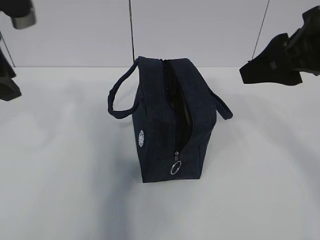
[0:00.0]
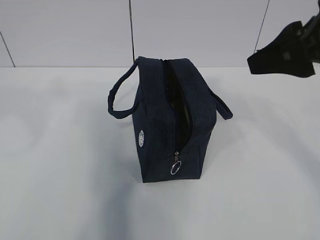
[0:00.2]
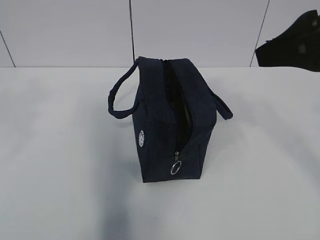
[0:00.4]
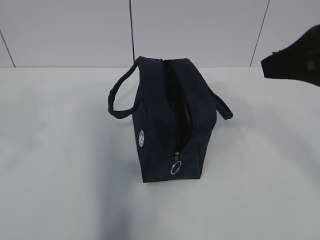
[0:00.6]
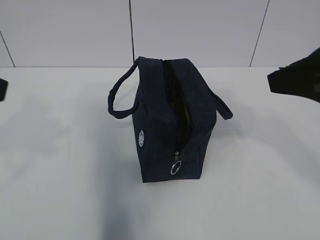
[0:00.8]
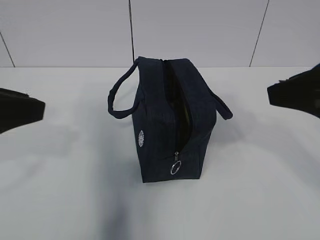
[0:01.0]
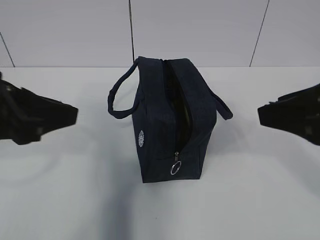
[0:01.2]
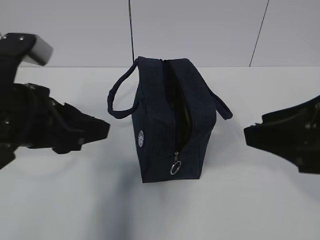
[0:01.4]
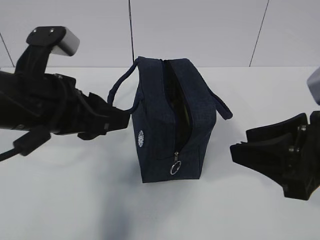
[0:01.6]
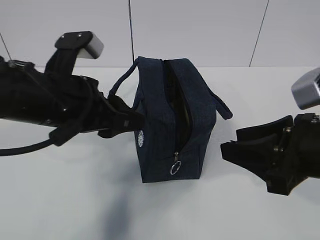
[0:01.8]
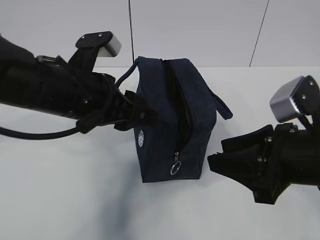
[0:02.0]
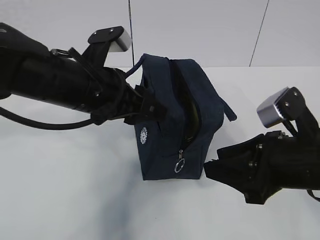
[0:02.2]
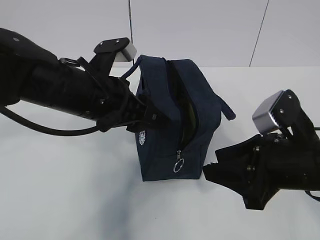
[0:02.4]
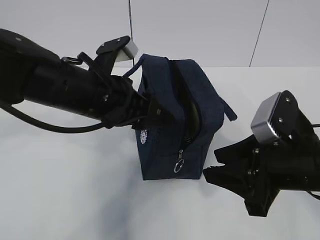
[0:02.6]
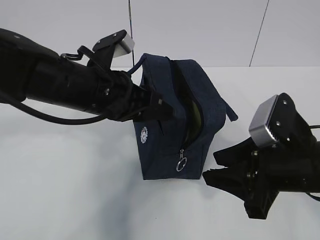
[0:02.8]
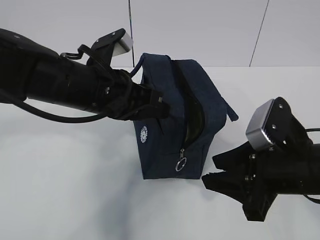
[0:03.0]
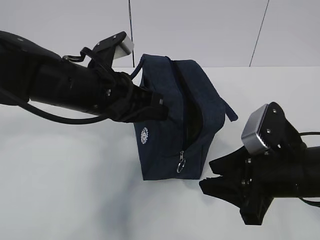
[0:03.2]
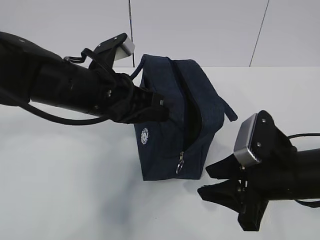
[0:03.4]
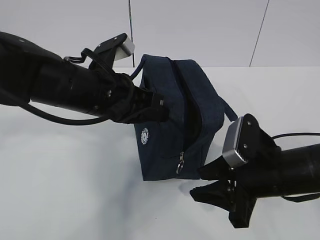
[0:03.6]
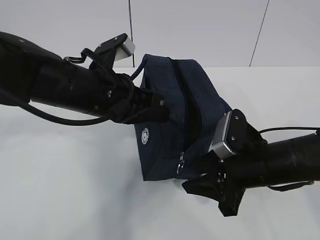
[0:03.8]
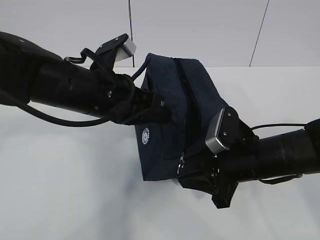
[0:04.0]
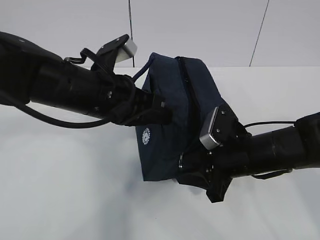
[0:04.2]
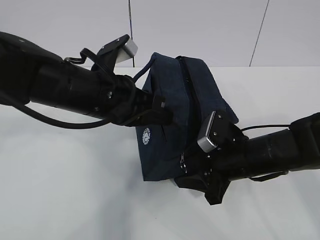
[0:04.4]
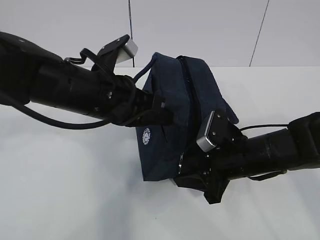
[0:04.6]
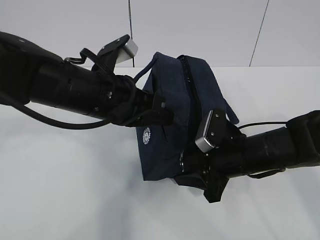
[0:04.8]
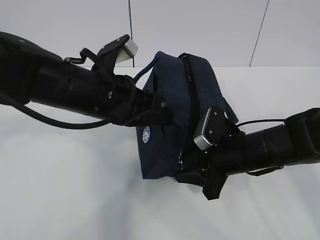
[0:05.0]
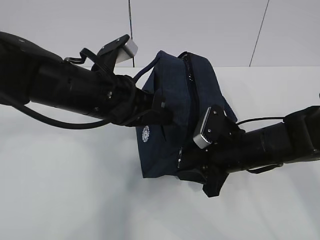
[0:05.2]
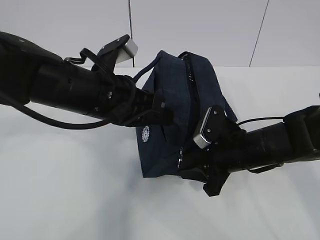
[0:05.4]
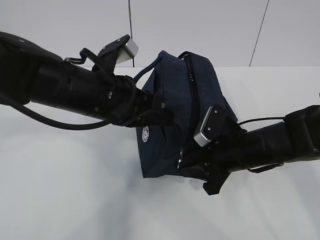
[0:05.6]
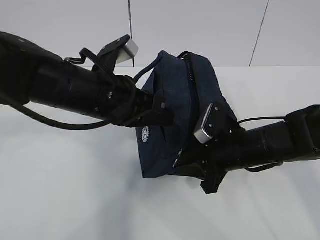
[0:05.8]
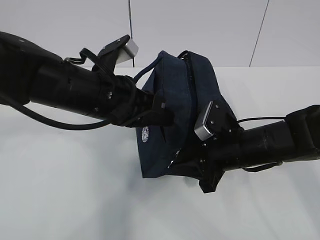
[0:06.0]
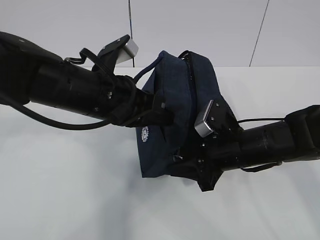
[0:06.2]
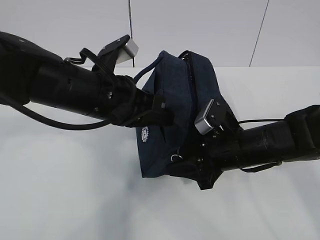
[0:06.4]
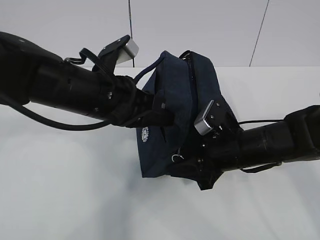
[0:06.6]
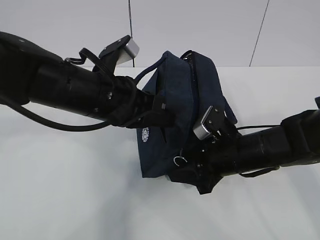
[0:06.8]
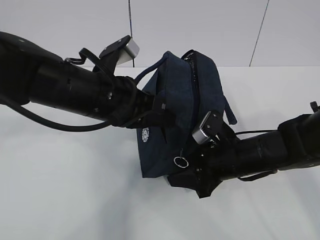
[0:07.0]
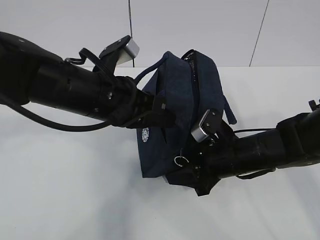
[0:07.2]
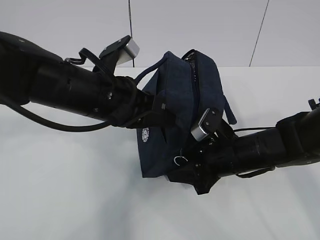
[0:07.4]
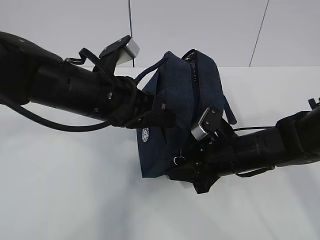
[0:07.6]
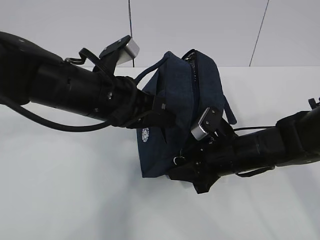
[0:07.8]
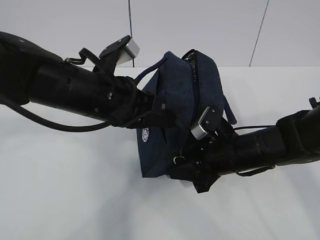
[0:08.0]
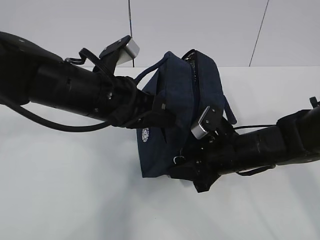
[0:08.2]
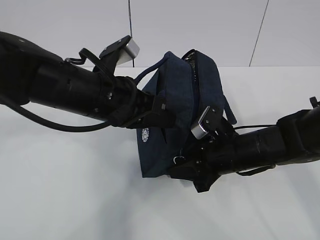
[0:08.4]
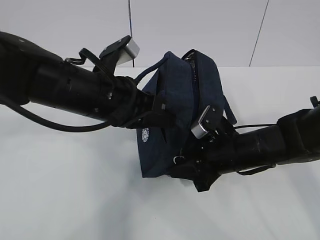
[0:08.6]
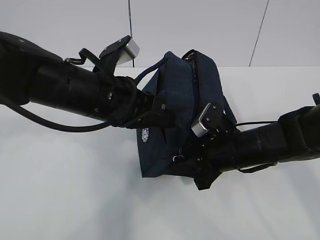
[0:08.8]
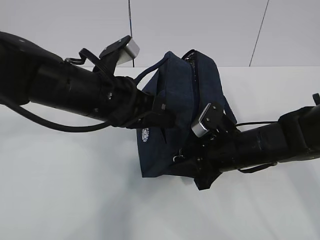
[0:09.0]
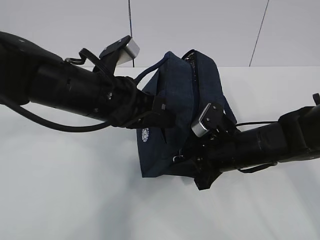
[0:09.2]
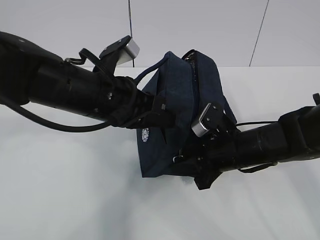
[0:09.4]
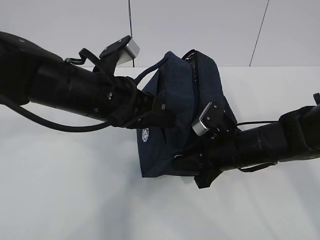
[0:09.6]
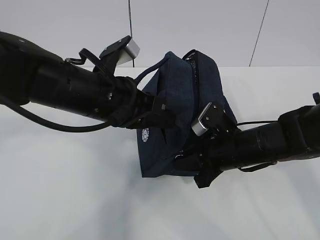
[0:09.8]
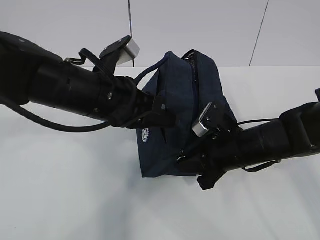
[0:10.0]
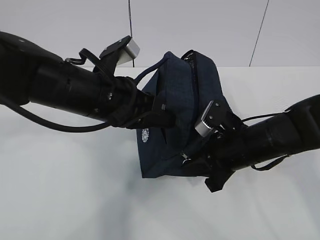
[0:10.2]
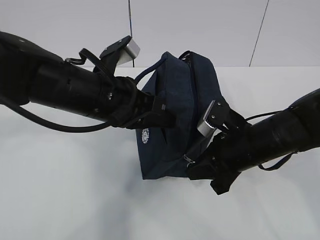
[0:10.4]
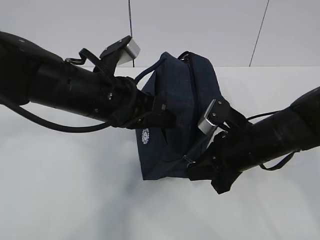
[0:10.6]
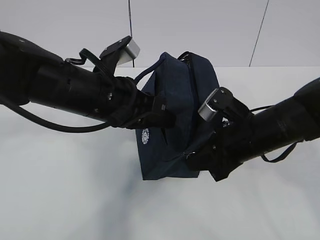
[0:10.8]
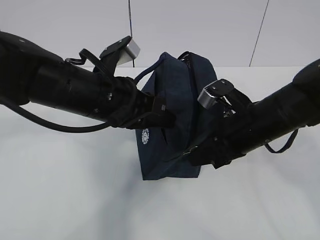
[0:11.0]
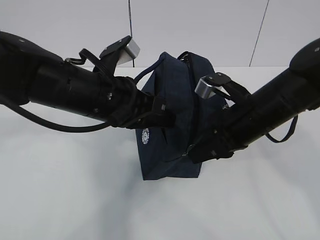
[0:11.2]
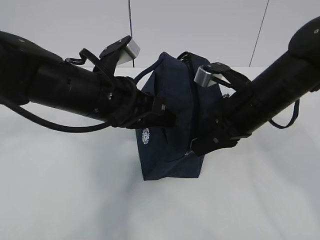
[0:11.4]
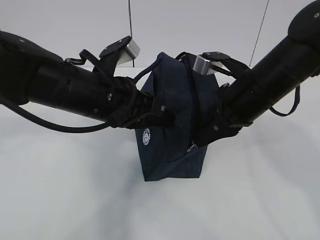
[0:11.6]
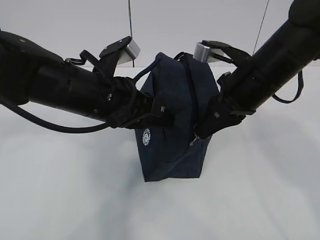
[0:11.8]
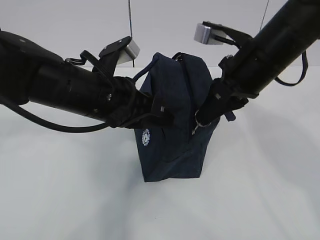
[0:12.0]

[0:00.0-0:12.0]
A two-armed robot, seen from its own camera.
Step, 0:00.0 to 0:09.8: Pull the zipper with your right hand.
0:00.0 to 0:01.6: The right gripper is displaced downward and backward by about 10 cm. The left gripper moves downward and to the right, approximately 10 cm.
0:01.6 to 0:03.0: The right gripper goes some 5 cm downward; the left gripper is displaced forward and to the right by roughly 10 cm, and closes up.
0:03.0 to 0:04.4: The right gripper heads forward and downward, covering roughly 10 cm.
0:04.4 to 0:07.6: There are only small adjustments of the grippers.
0:07.6 to 0:09.0: Both grippers stay put.
0:09.0 to 0:10.4: The right gripper closes.
0:10.4 to 0:12.0: The right gripper shifts approximately 15 cm upward.

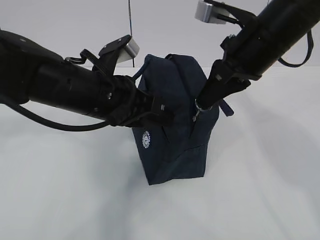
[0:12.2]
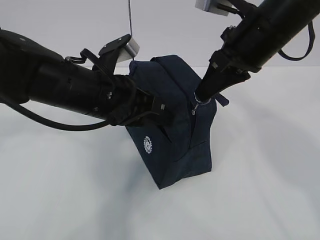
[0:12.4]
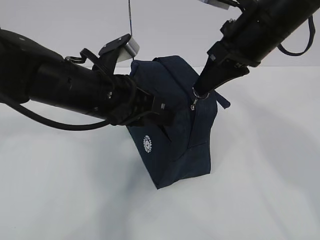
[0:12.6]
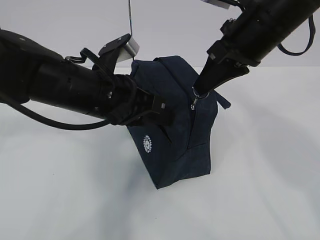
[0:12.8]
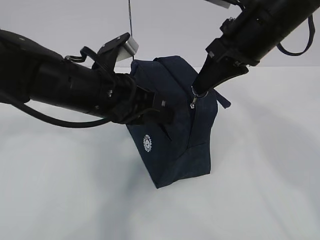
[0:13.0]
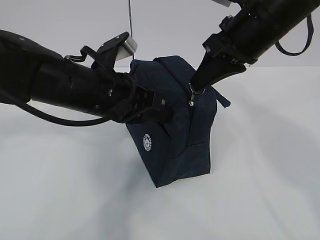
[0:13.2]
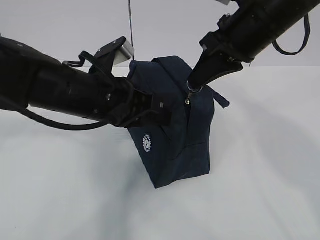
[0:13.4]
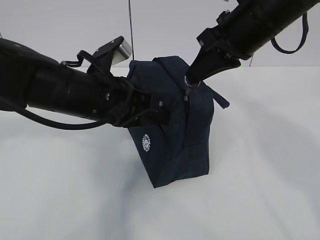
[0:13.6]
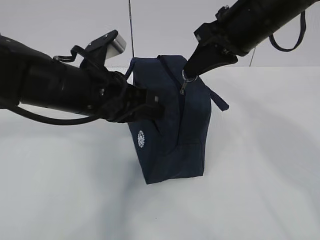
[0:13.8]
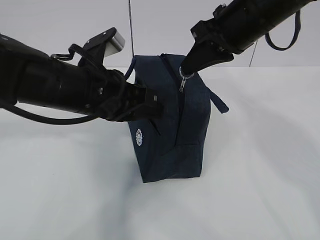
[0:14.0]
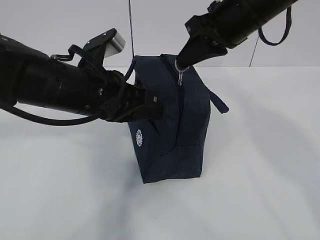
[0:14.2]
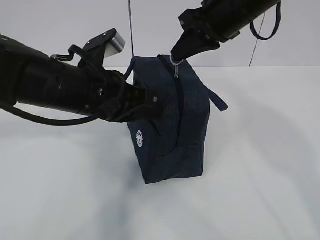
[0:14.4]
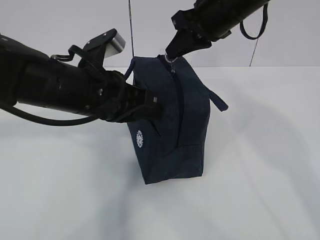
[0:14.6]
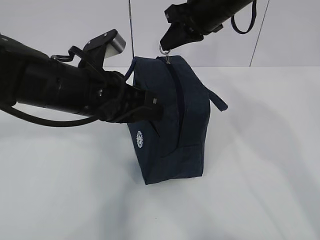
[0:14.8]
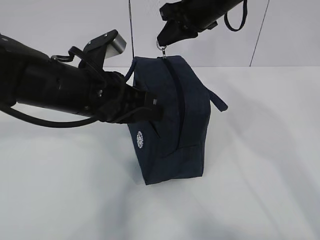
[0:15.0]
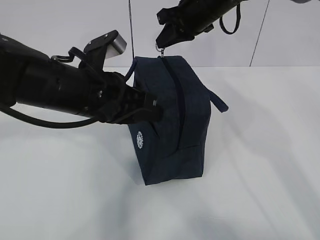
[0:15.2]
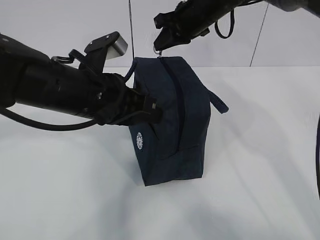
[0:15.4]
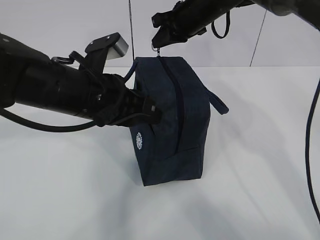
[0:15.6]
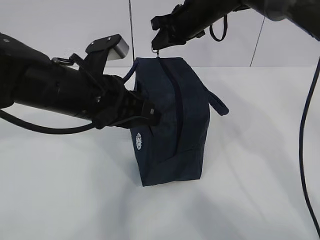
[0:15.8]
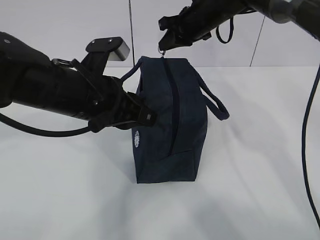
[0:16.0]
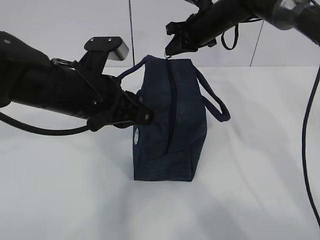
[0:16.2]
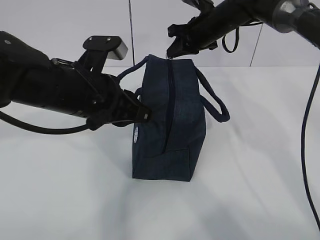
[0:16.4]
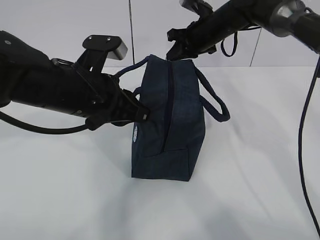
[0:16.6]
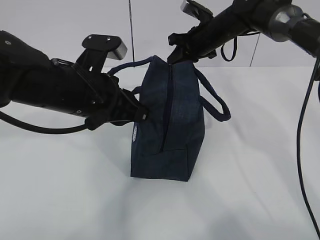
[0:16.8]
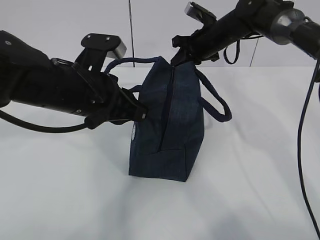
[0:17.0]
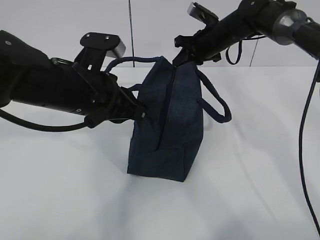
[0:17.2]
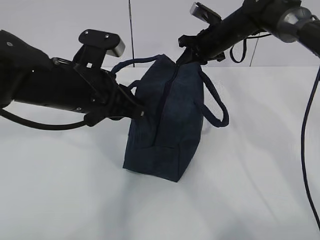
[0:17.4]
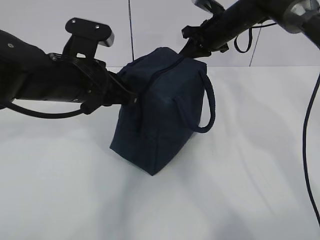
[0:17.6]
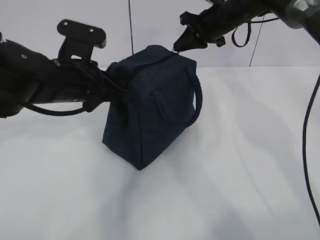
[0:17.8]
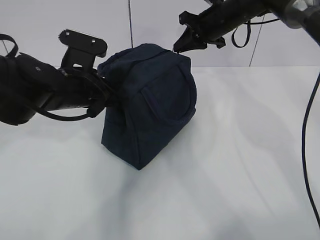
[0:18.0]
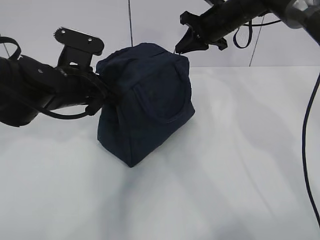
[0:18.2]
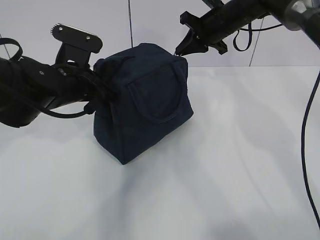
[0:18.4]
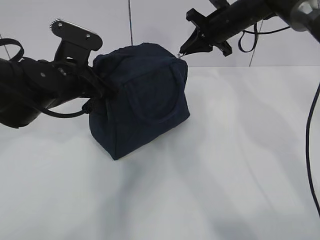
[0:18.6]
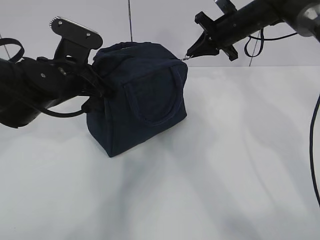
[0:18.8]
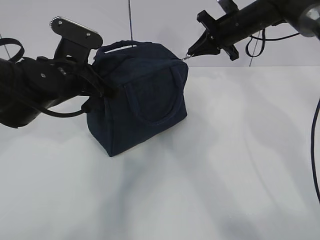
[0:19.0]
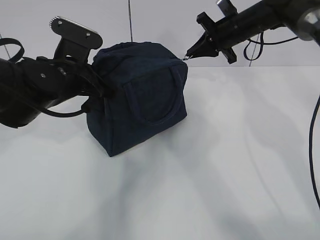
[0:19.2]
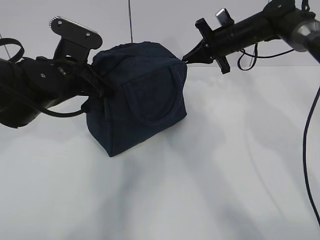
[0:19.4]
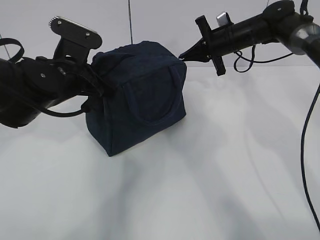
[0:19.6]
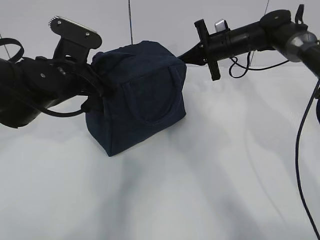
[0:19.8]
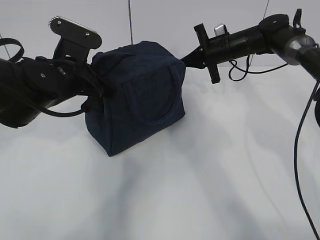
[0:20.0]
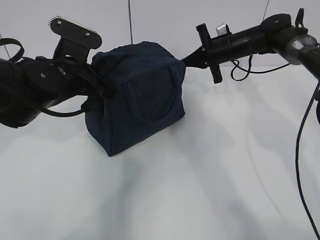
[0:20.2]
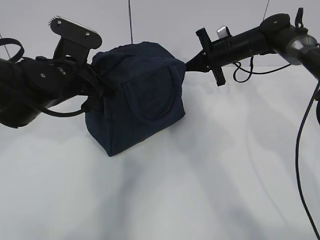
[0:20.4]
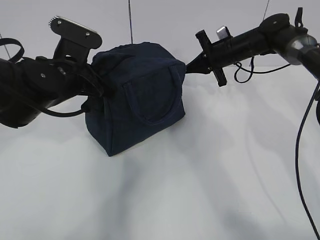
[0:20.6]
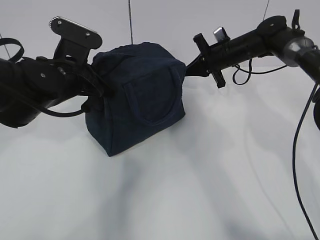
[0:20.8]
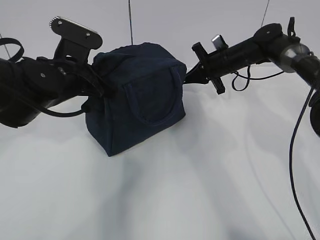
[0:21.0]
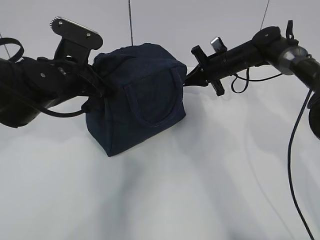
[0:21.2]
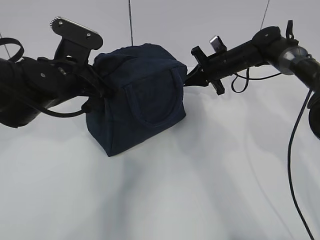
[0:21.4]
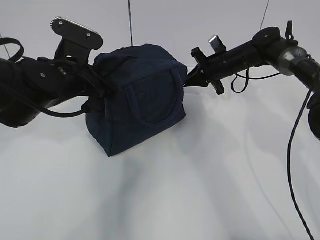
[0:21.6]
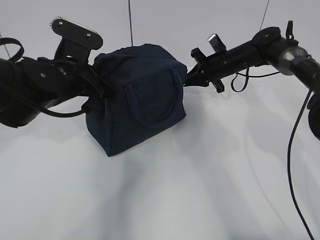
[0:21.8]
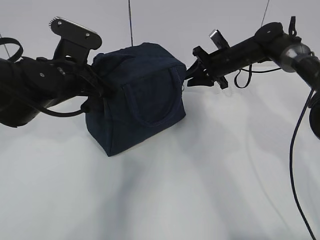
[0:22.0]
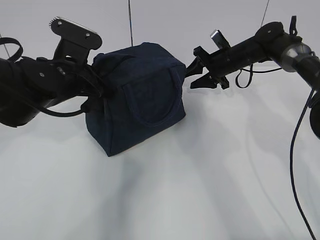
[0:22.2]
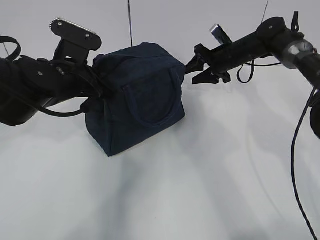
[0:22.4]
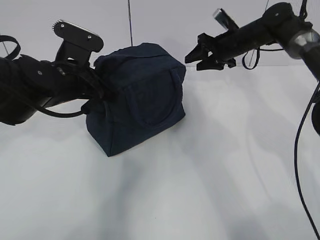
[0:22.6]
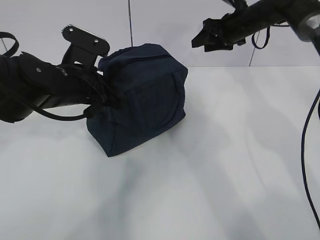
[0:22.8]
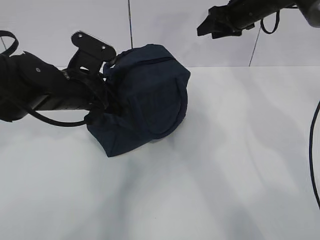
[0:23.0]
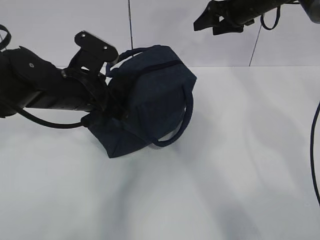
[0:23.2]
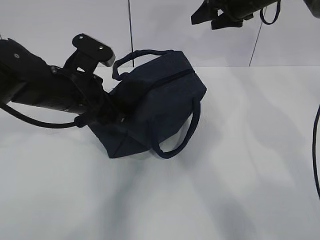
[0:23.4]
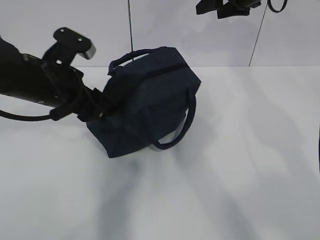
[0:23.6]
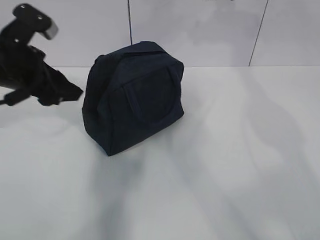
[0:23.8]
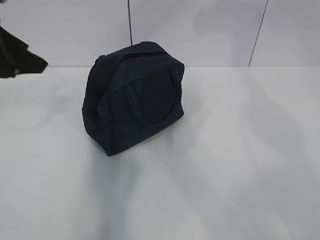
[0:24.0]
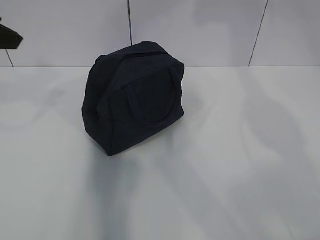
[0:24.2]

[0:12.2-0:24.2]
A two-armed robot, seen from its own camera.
0:12.2 to 0:13.8: There are only small adjustments of the grippers.
0:13.8 to 0:15.2: The right gripper is displaced forward by some 15 cm.
0:15.2 to 0:16.6: The right gripper moves downward and forward, approximately 10 cm.
0:16.6 to 0:18.2: The left gripper shifts about 5 cm forward.
0:18.2 to 0:19.8: The right gripper heads downward, covering some 5 cm.
0:19.8 to 0:21.2: The grippers make only small movements.
0:21.2 to 0:22.6: The right gripper travels upward by roughly 5 cm, and opens up.
0:22.6 to 0:24.2: The right gripper heads upward, covering some 25 cm. The left gripper heads upward and to the left, covering roughly 20 cm, and opens.
